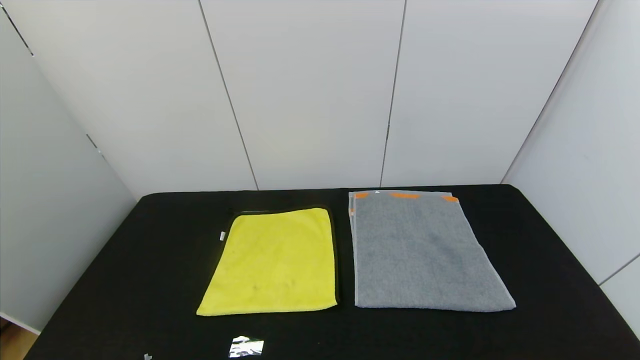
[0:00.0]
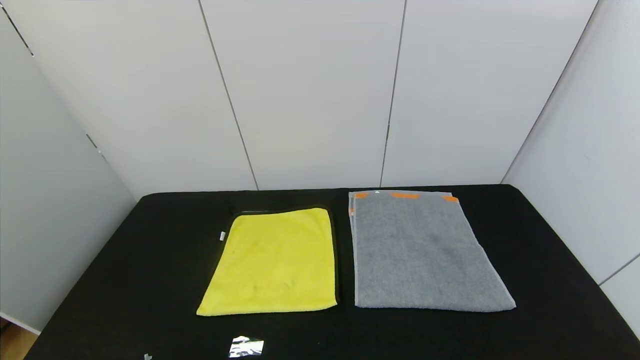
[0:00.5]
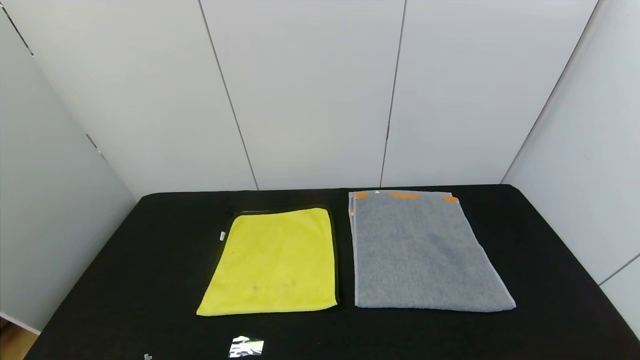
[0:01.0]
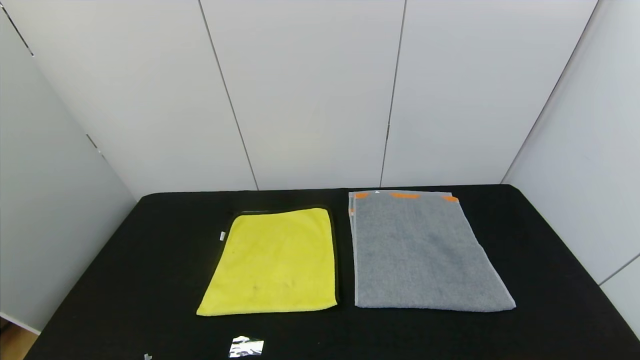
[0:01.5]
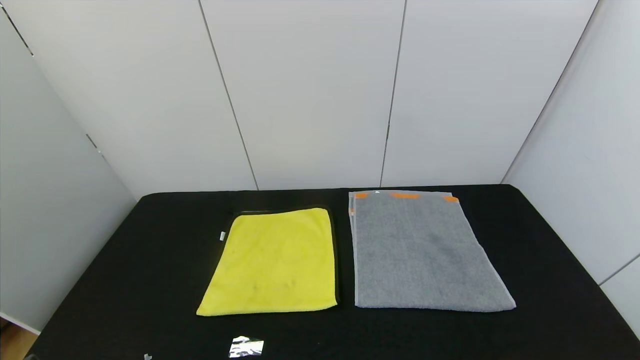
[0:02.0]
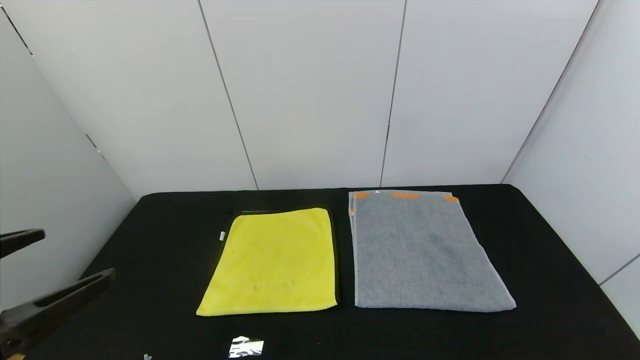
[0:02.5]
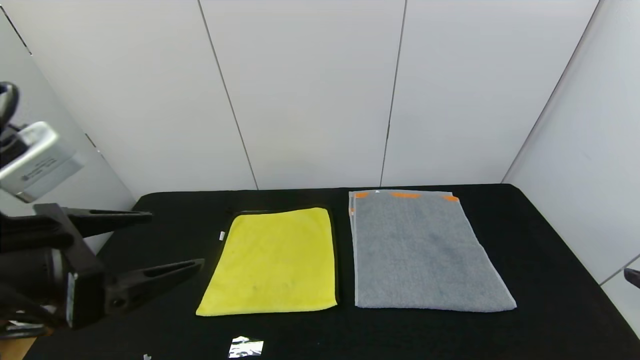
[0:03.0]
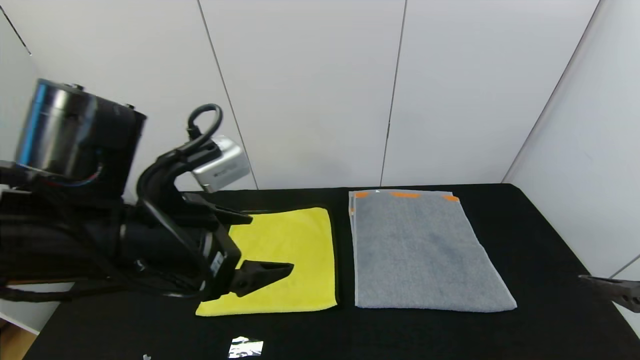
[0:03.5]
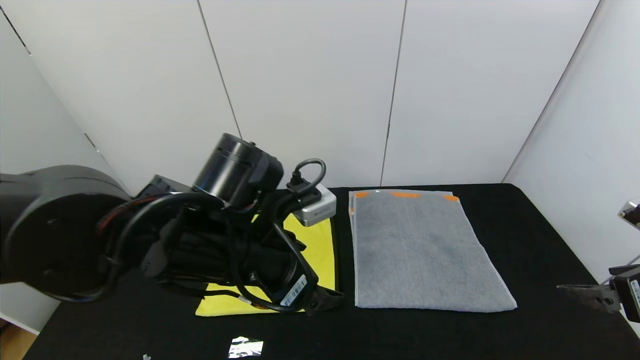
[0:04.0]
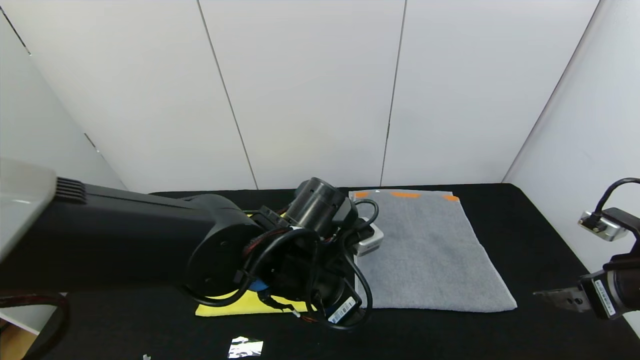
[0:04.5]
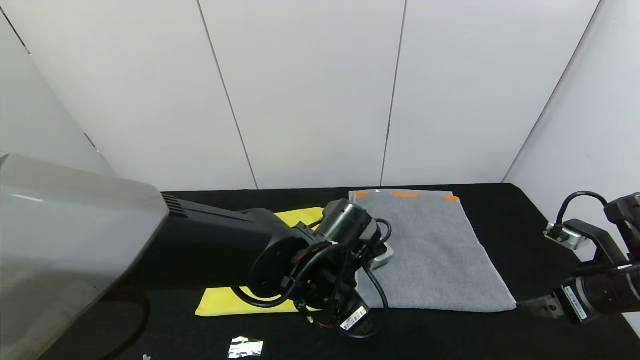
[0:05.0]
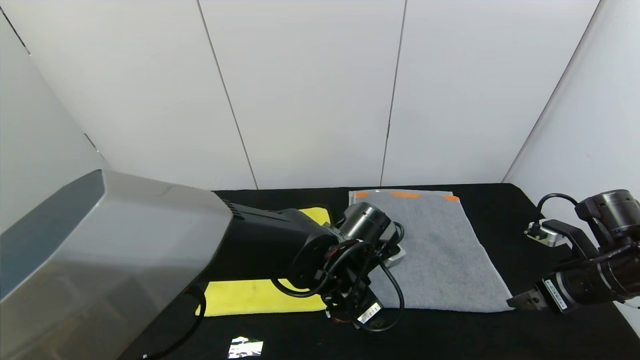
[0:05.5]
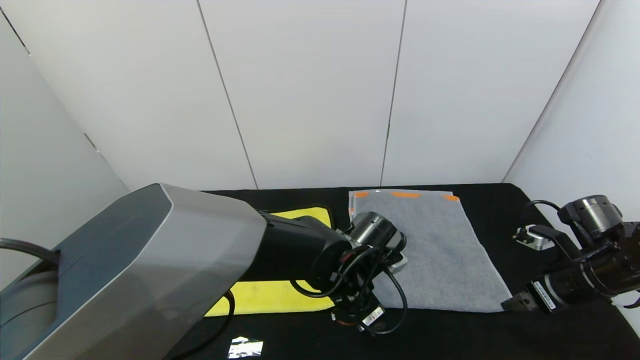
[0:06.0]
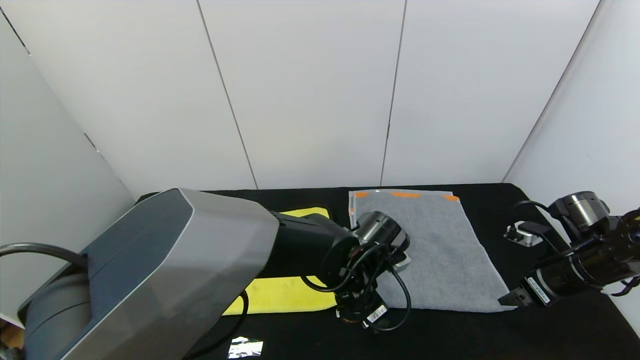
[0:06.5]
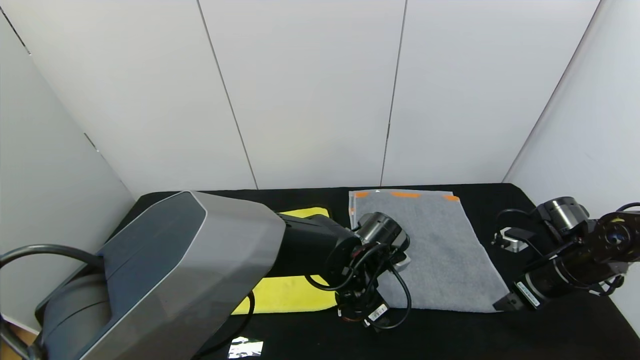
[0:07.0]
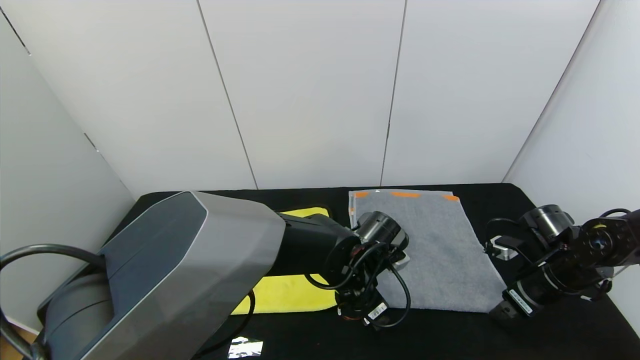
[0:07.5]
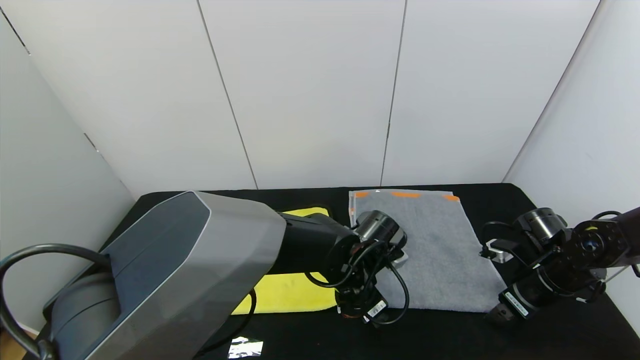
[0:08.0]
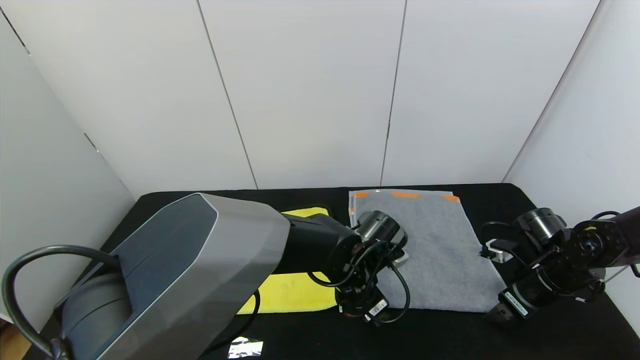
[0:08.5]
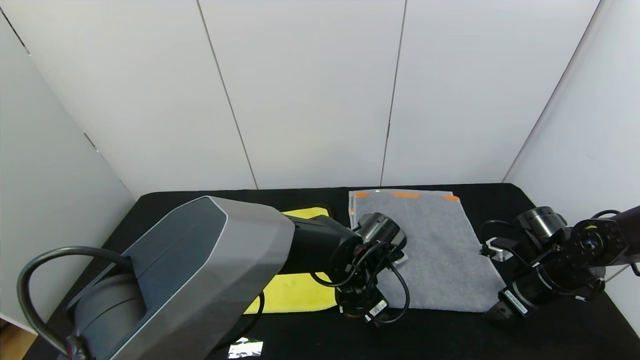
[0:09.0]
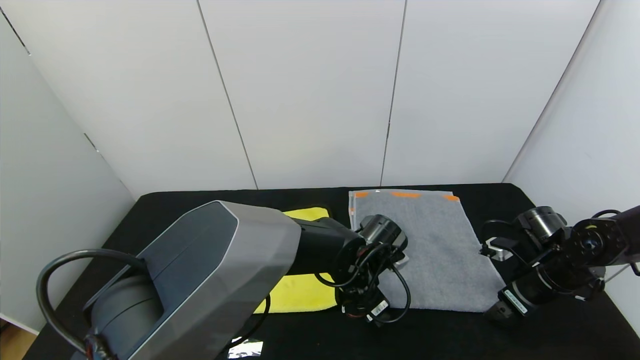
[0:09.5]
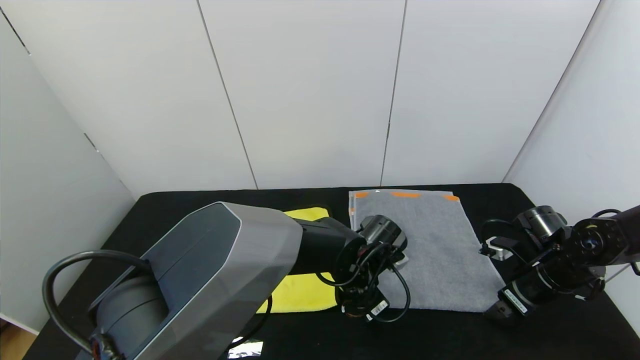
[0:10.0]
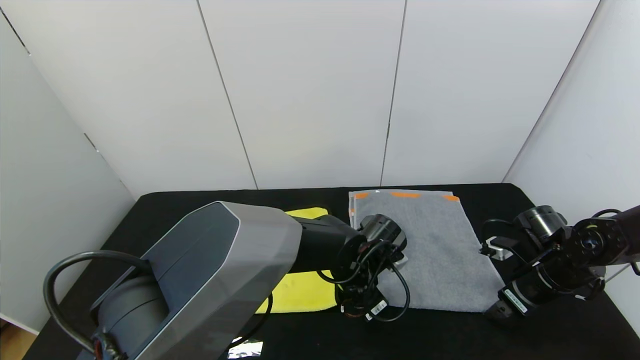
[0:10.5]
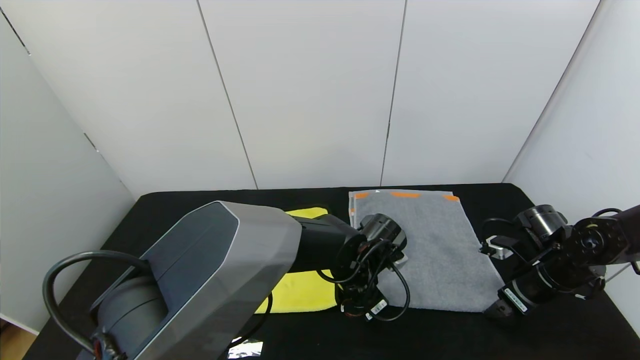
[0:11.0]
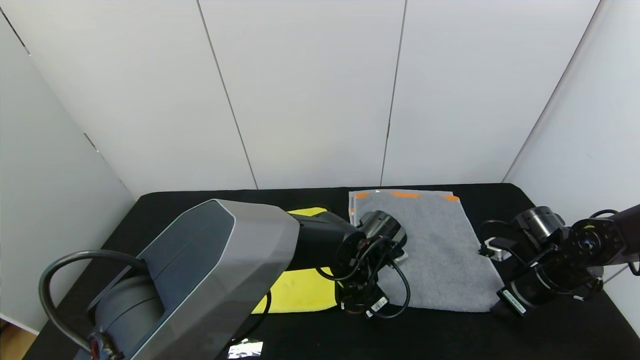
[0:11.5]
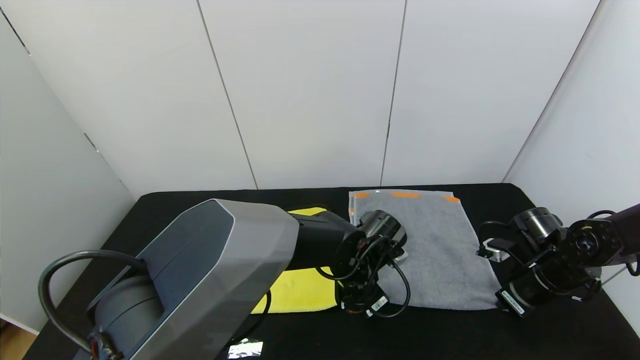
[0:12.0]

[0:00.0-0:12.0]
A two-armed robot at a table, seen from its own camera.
Task of the whole recording: Use the gripper to fold the yellow towel and grey towel in half twice,then put the yellow towel on the grey towel.
0:02.0 to 0:04.0: The right gripper is displaced forward by about 20 cm. Meanwhile the left gripper is displaced forward and to the right by approximately 30 cm.
0:04.0 to 0:06.0: The left gripper goes approximately 15 cm downward, to the right and forward. The right gripper heads forward and downward, covering about 15 cm.
0:06.0 to 0:08.0: The right gripper ends up about 5 cm from where it was.
0:08.0 to 0:10.0: The left gripper closes up.
0:10.0 to 0:12.0: The left gripper closes up; the right gripper closes its fingers.

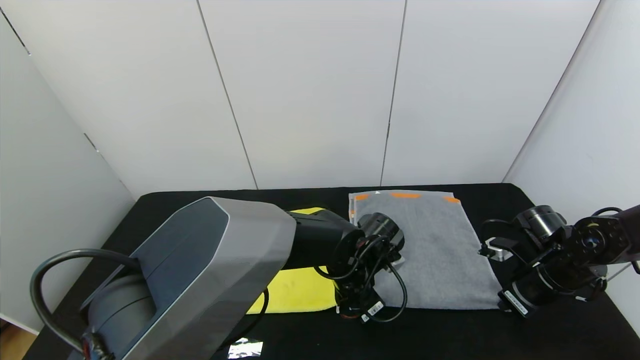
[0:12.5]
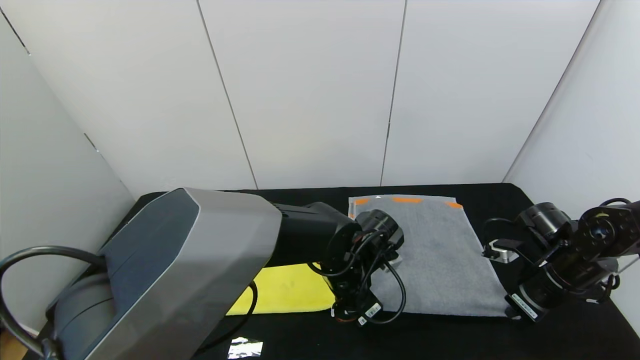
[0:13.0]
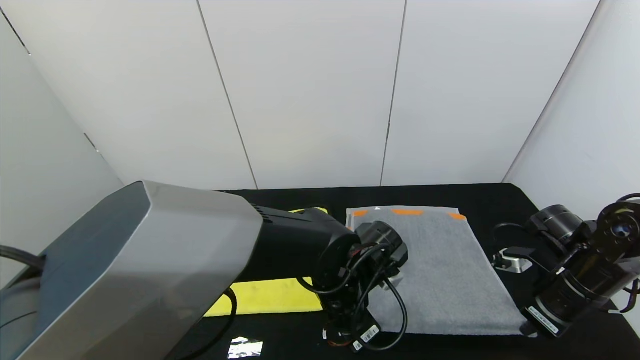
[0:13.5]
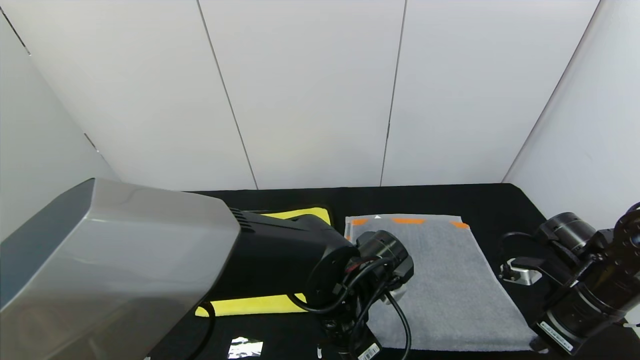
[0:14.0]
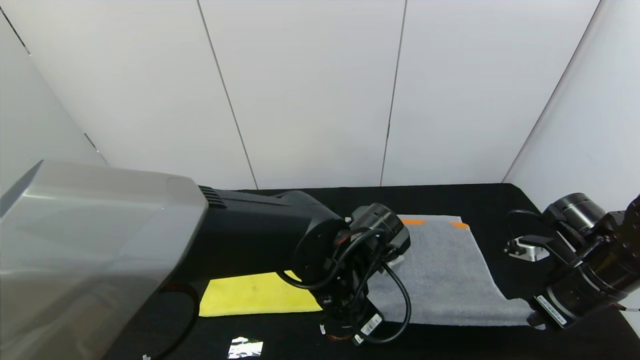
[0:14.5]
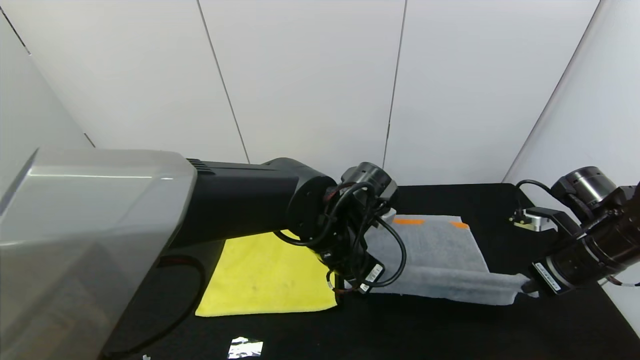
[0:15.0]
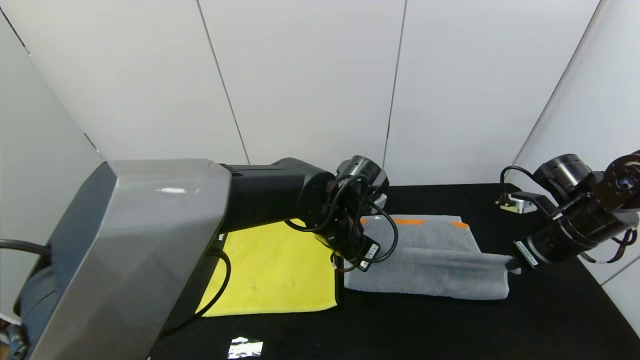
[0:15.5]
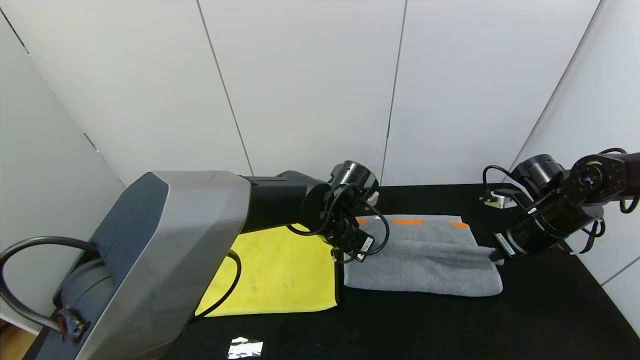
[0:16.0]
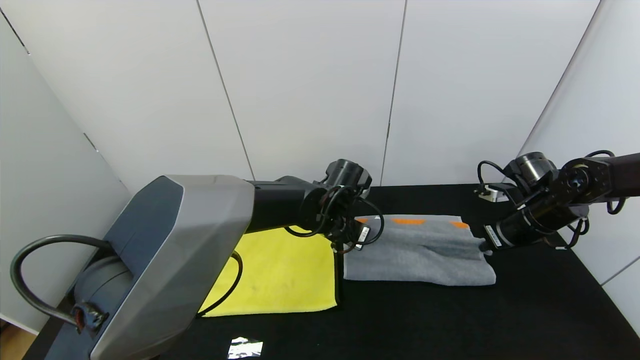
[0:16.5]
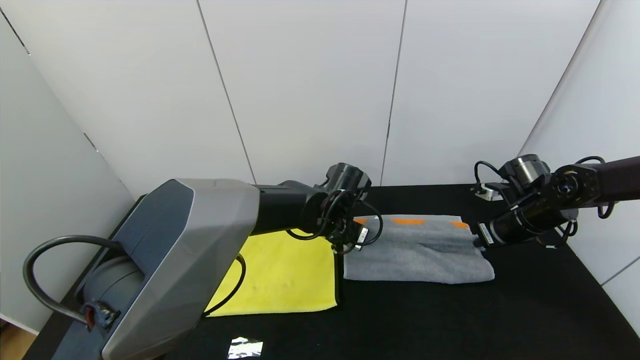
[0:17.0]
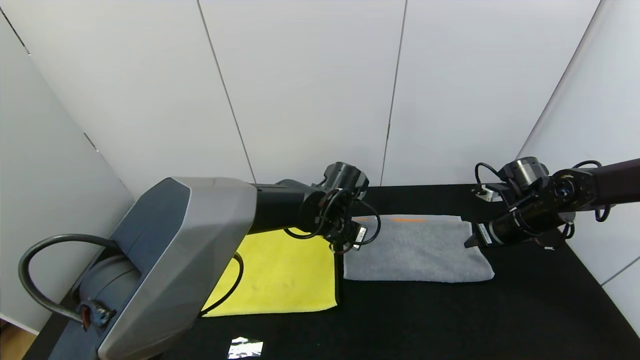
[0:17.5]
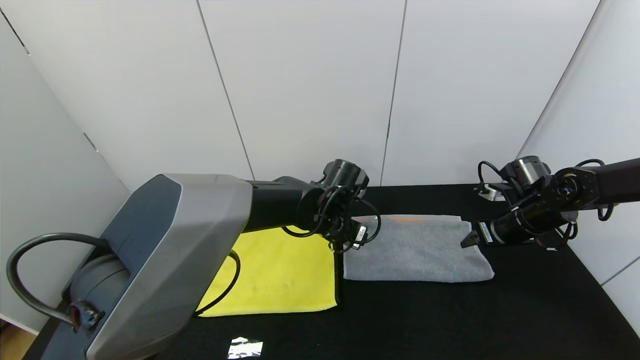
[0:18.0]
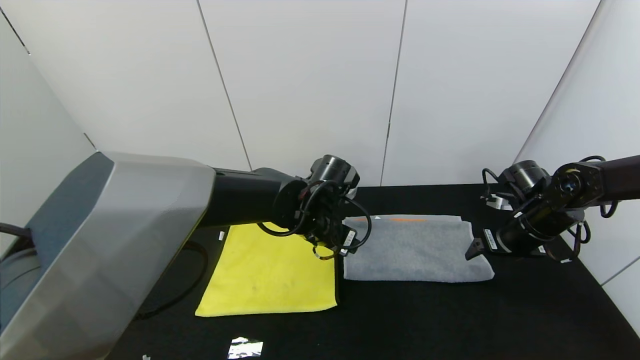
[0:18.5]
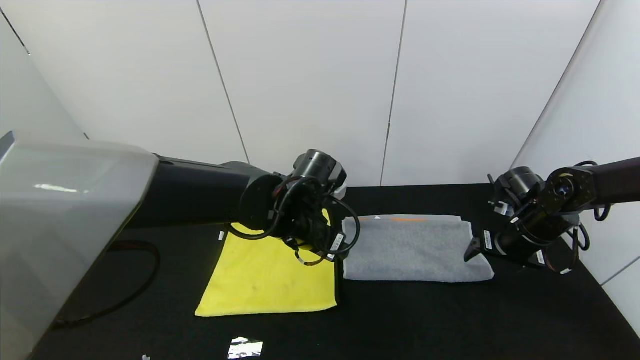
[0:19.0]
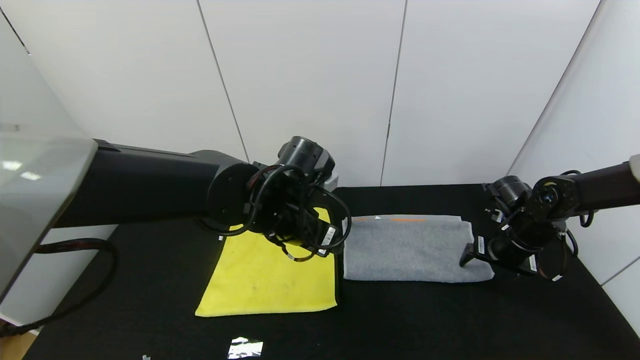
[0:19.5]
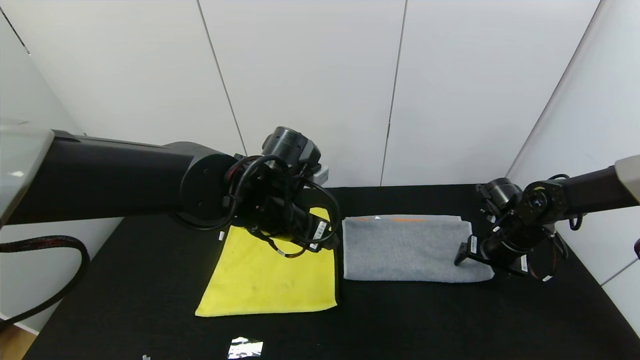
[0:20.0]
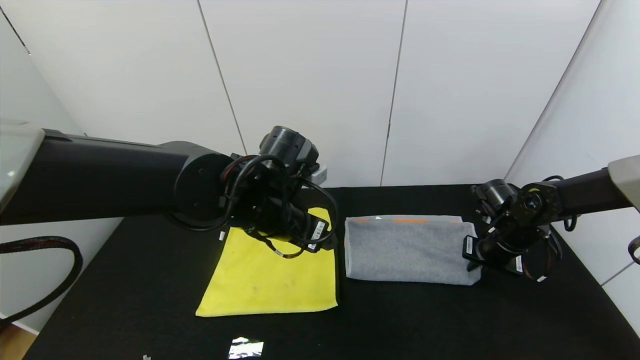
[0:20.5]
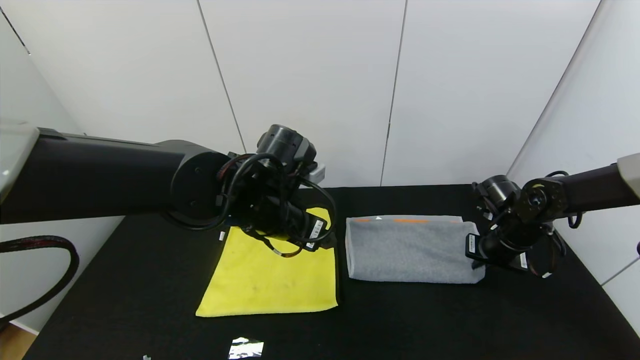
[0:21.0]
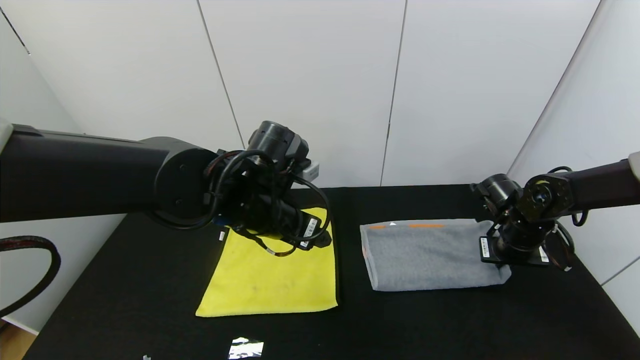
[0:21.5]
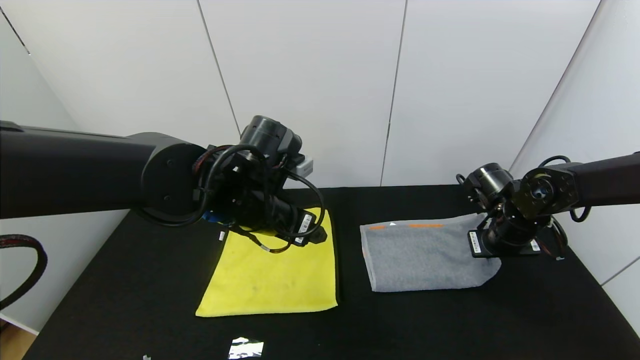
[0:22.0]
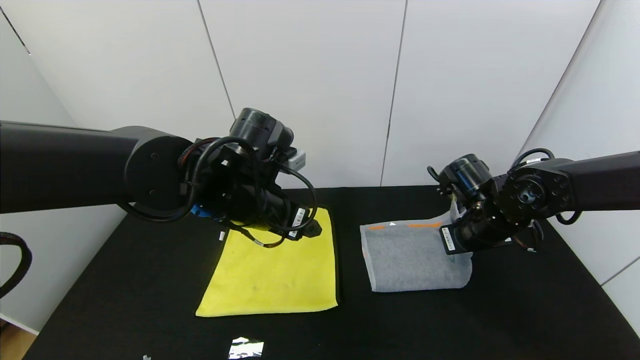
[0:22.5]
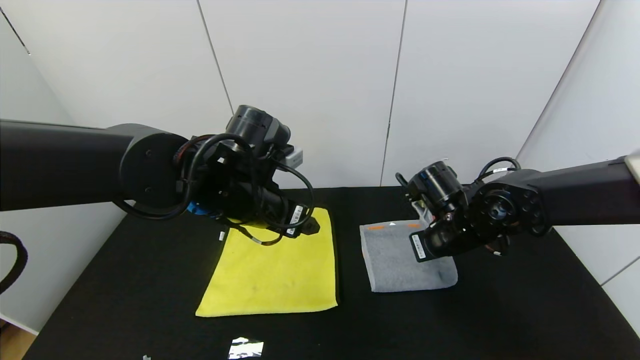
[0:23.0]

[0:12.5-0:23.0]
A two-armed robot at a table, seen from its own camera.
Task of the whole recording: Use the gripper to fold the yellow towel and grey towel in half twice,then put the yellow towel on the grey towel.
Step, 0:12.5 to 0:18.0: Fold the gray towel upwards with the left gripper.
0:12.5 to 0:14.5: Both grippers move upward and backward, roughly 10 cm.
0:14.5 to 0:16.5: Both grippers travel together forward, roughly 15 cm.
0:16.5 to 0:19.0: The right gripper opens. Meanwhile the left gripper goes some 5 cm backward, and opens its fingers.
0:19.0 to 0:21.0: The left gripper ends up some 5 cm from where it was, while the right gripper closes up.
0:21.0 to 0:23.0: The right gripper heads to the left, covering about 15 cm.
